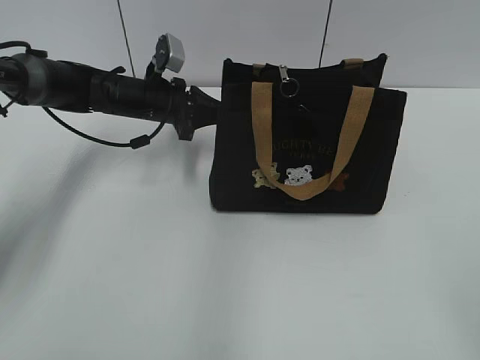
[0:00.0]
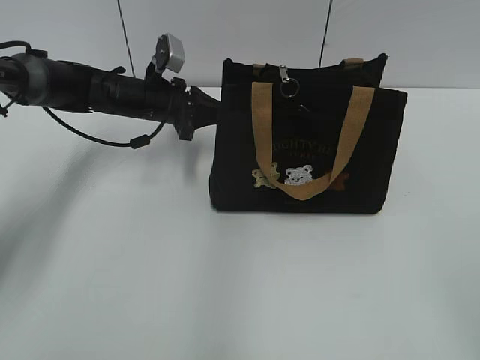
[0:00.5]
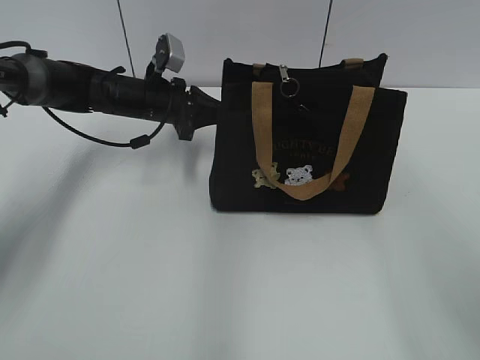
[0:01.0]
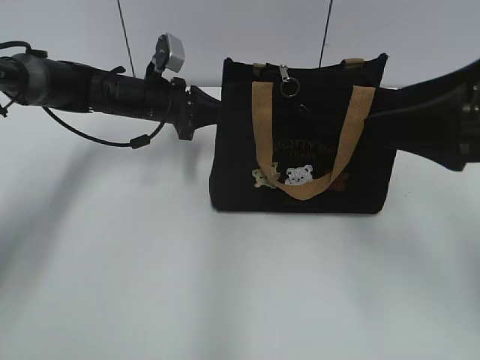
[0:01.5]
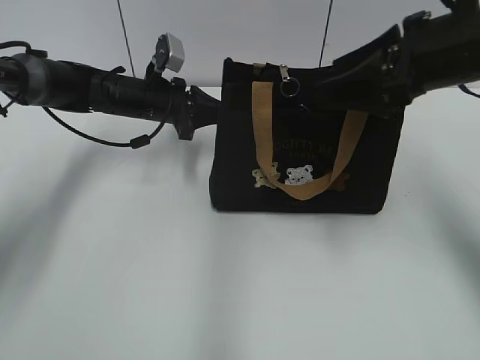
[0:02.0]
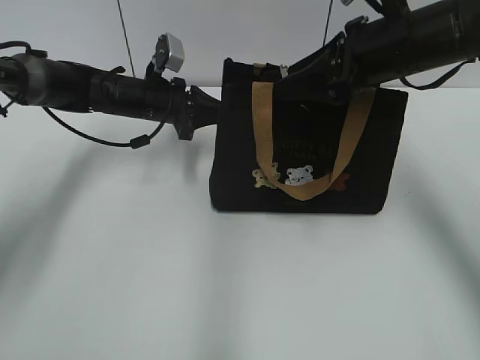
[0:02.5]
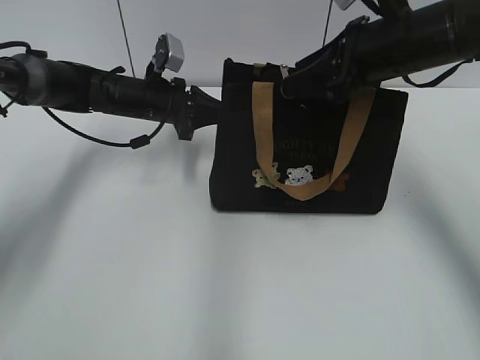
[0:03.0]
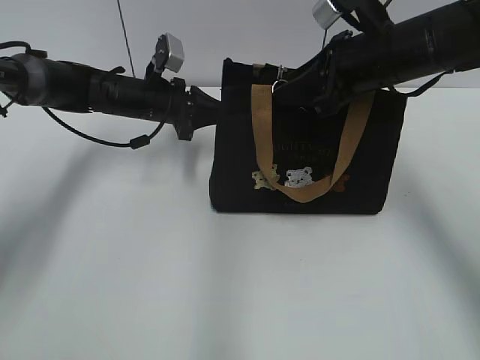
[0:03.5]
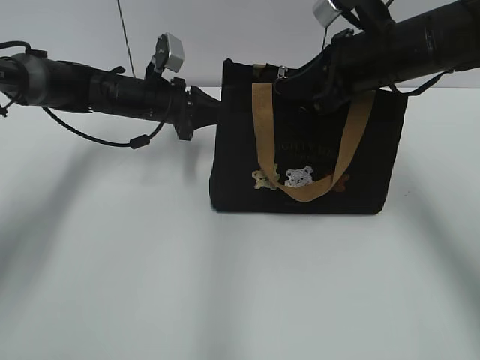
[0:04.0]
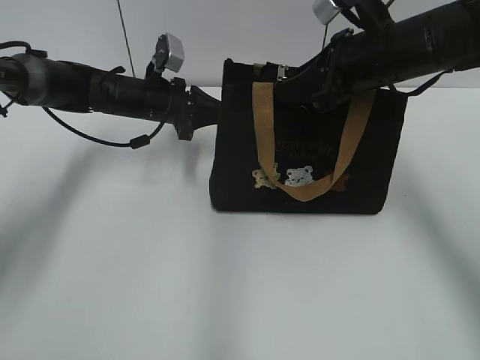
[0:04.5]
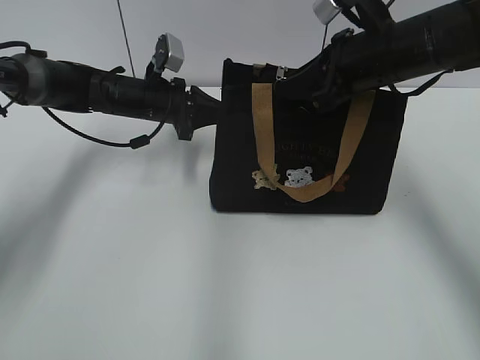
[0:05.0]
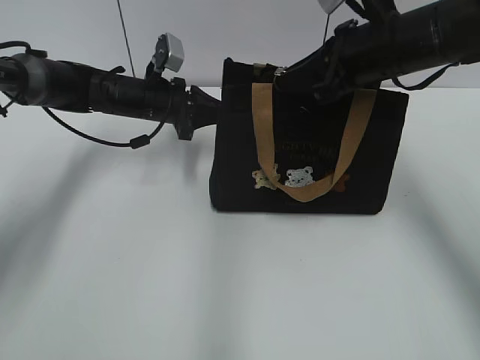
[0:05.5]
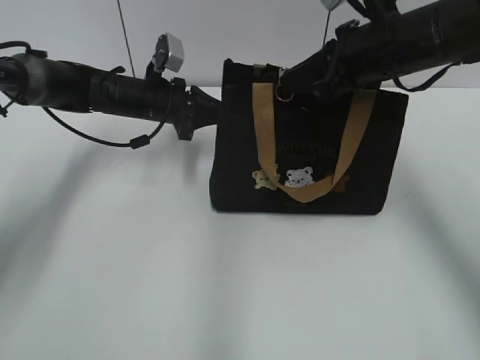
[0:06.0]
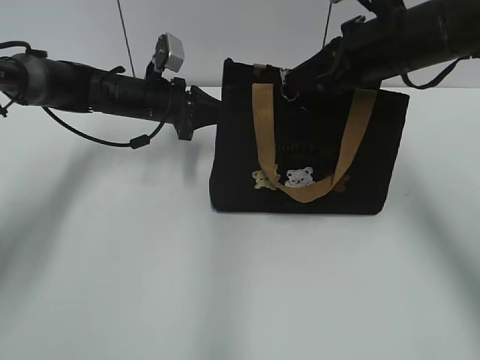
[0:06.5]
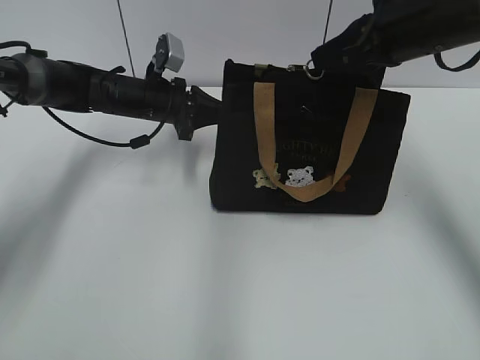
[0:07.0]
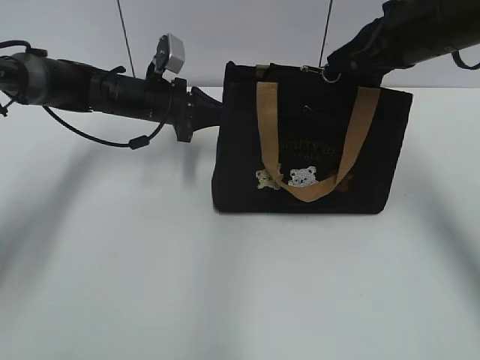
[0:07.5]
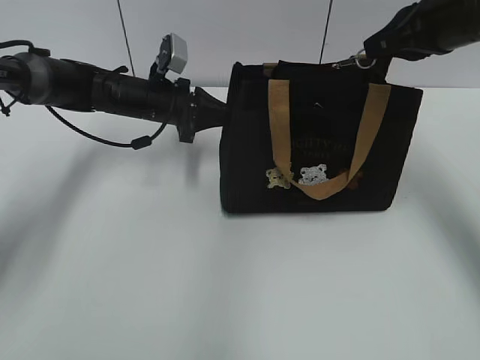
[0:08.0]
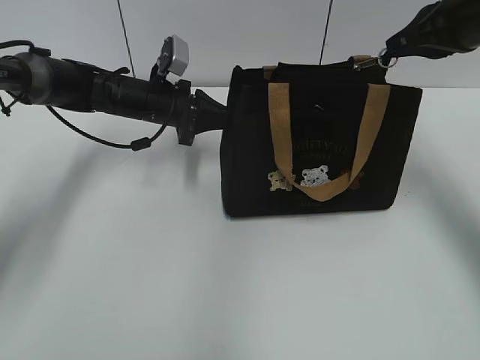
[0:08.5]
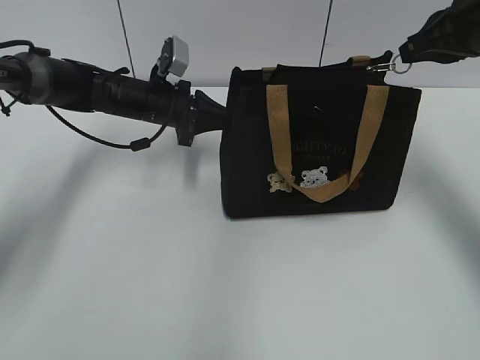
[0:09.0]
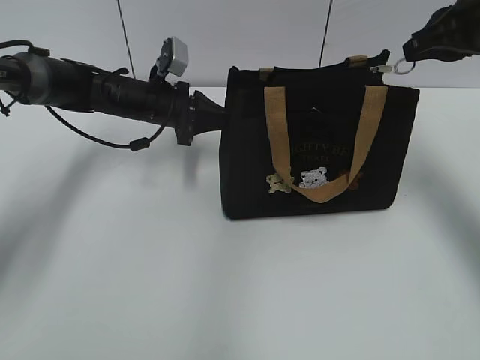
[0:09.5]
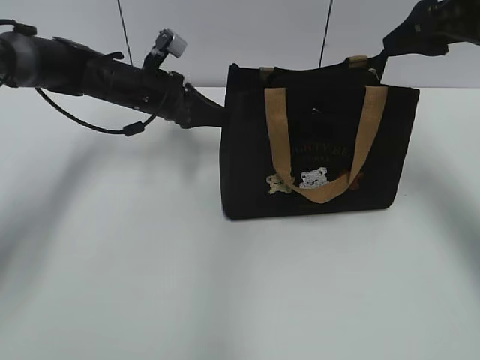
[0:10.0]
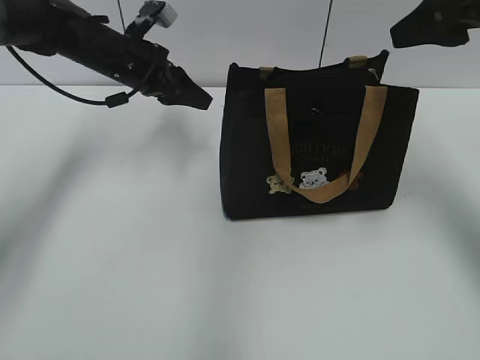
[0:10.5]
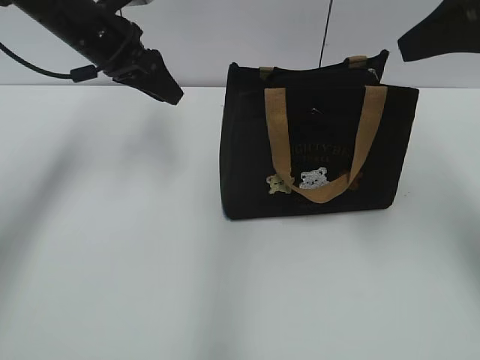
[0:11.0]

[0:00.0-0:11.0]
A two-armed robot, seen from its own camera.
Step, 0:00.0 to 0:09.5: Pull open the zipper with your right hand.
0:00.0 to 0:02.0: The right gripper is displaced forward by about 30 cm.
0:02.0 to 0:03.5: The right gripper moves forward, about 5 cm, and closes.
0:03.5 to 0:05.5: Both grippers stay put.
0:05.5 to 0:07.5: The grippers make only small movements.
0:07.5 to 0:09.0: The right gripper heads to the right, covering some 5 cm.
0:09.0 to 0:11.0: The right gripper travels backward and upward by about 10 cm, and opens, while the left gripper heads upward, covering approximately 10 cm, and opens up.

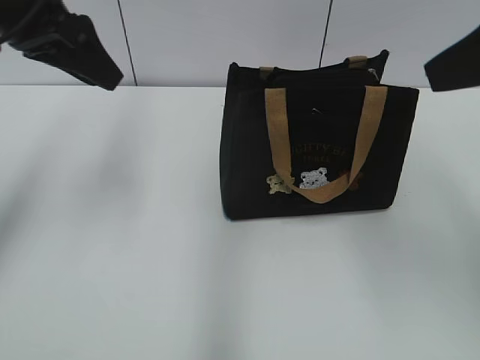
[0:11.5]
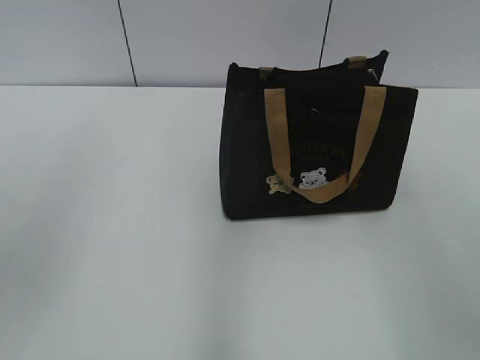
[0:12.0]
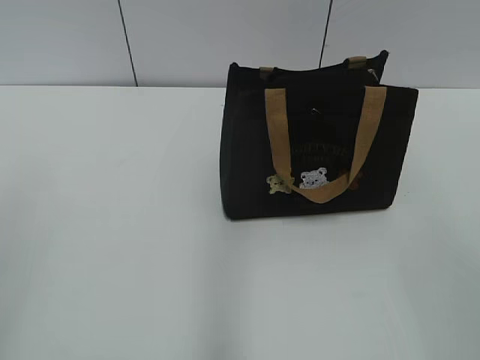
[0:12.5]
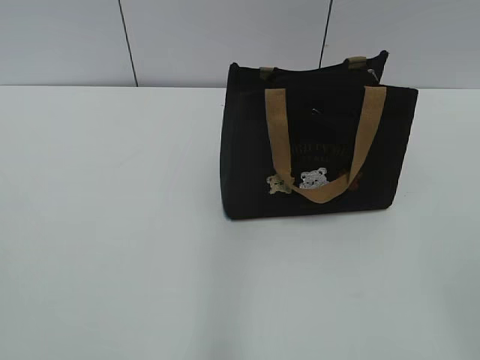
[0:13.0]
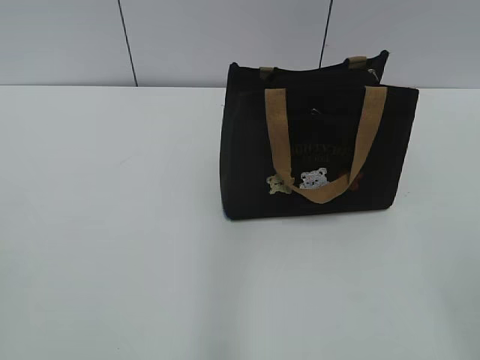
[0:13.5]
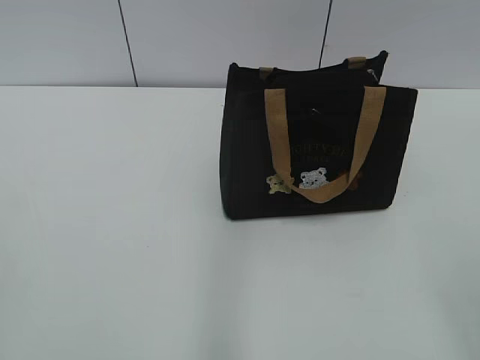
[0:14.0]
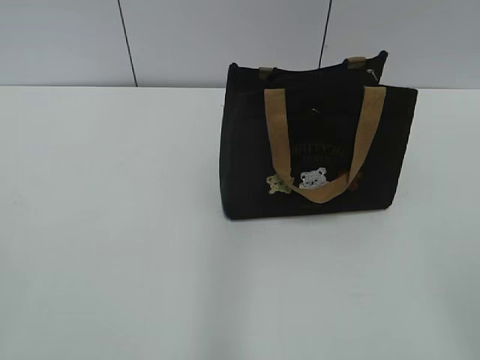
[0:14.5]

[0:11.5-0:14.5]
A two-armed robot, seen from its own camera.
0:11.5 to 0:13.0: The grippers both shift backward by approximately 30 cm.

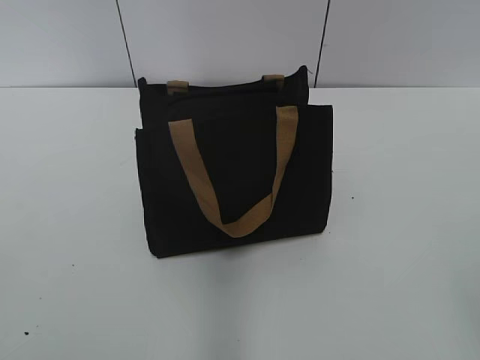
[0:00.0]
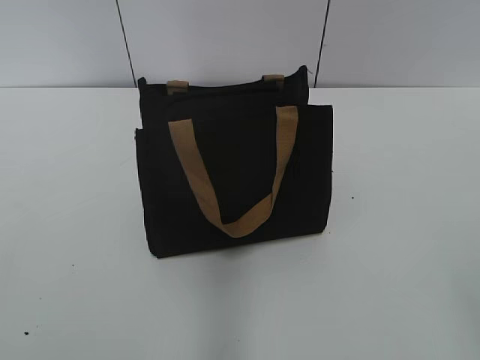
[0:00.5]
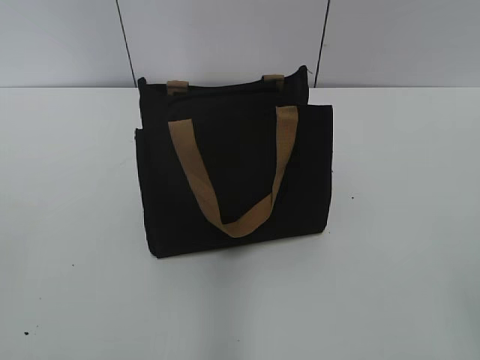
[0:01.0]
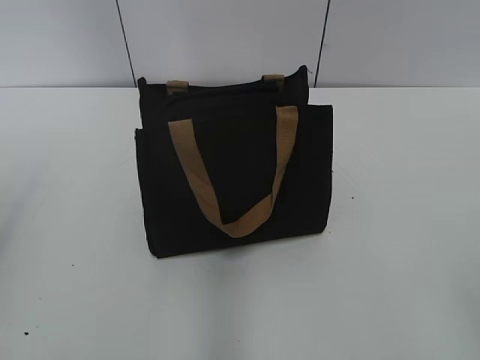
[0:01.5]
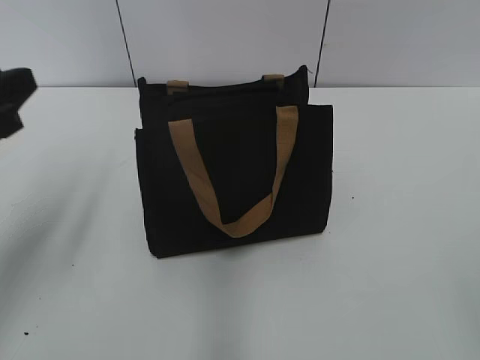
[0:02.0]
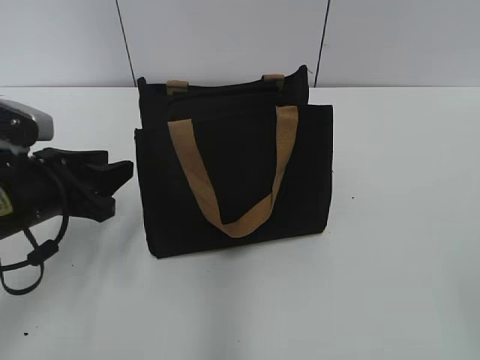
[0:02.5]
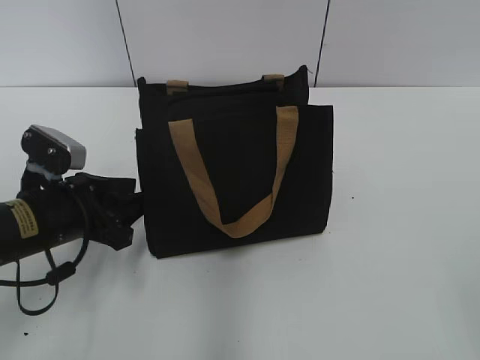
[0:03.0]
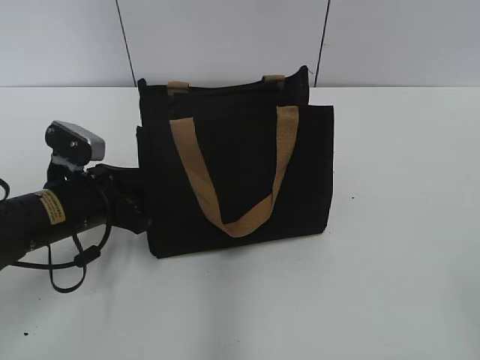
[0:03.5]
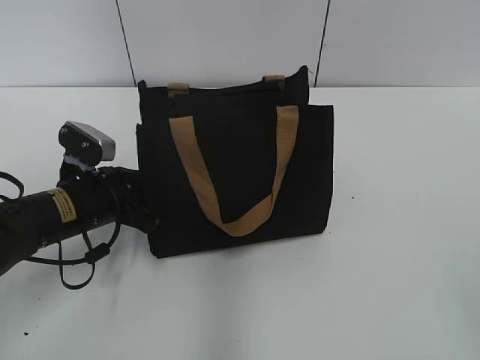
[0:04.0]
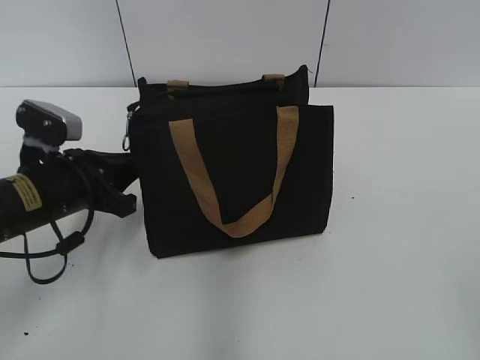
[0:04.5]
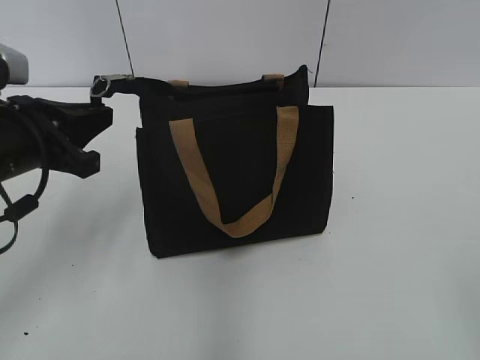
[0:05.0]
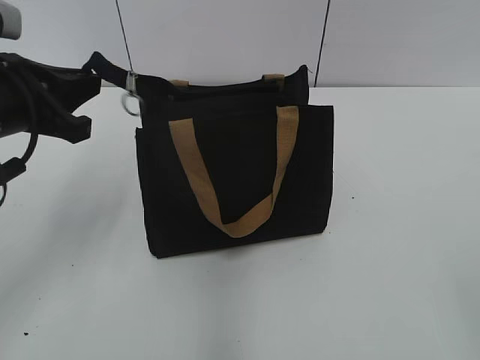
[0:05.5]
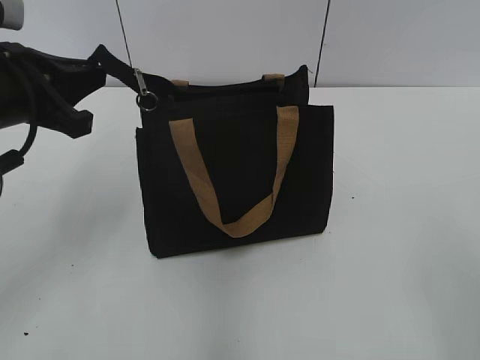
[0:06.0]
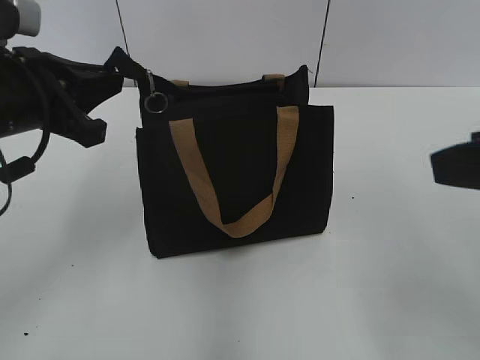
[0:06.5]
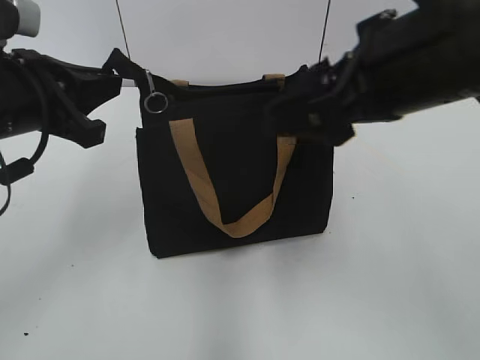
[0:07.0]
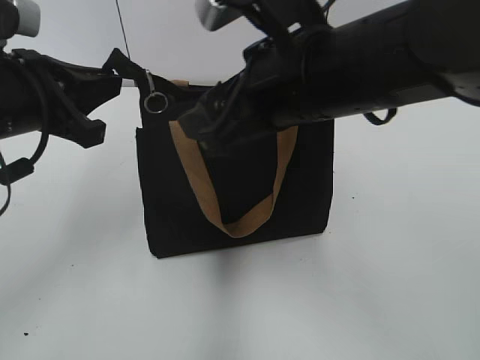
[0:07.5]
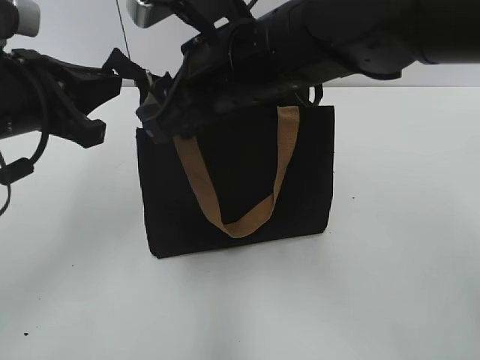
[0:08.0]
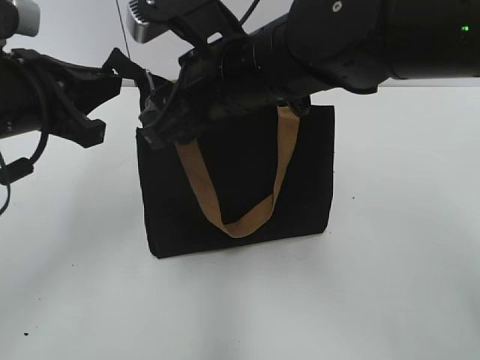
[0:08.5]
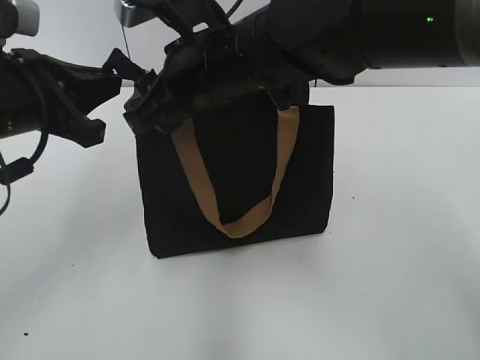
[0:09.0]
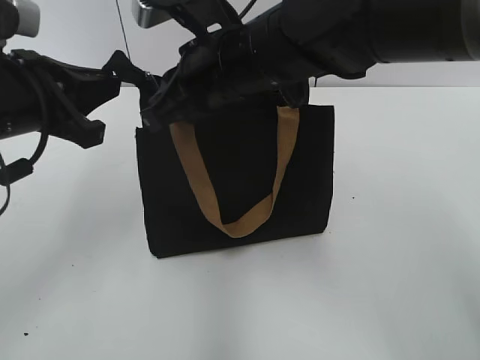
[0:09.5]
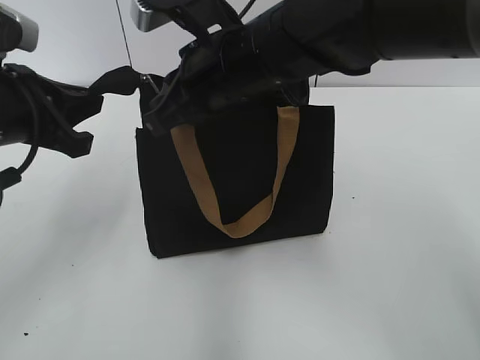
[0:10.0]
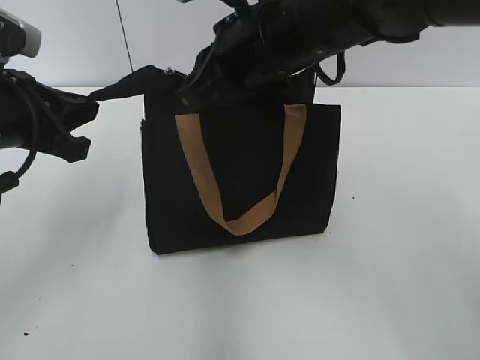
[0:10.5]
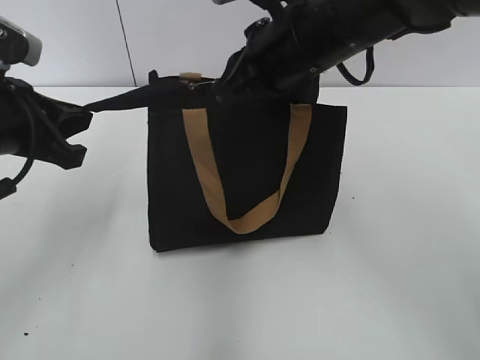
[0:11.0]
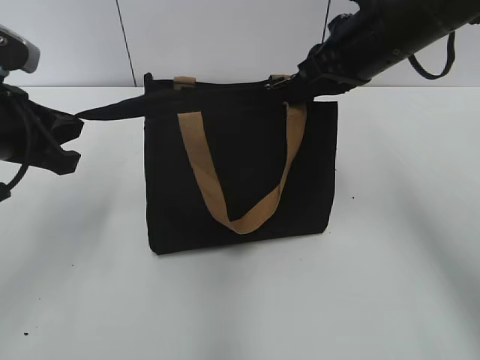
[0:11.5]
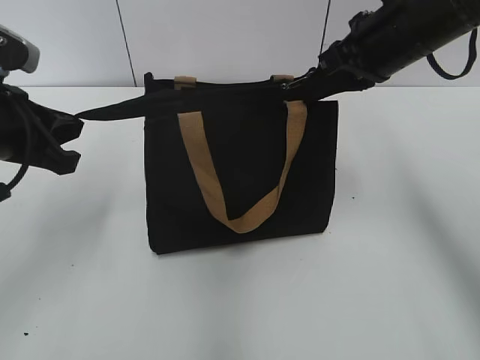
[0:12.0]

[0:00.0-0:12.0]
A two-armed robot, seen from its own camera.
0:02.0 to 0:04.0: The left gripper is displaced downward, forward and to the right by roughly 20 cm.
0:04.0 to 0:06.0: The left gripper travels upward by approximately 15 cm.
0:06.0 to 0:08.0: The right gripper is displaced forward and to the left by roughly 35 cm.
0:08.0 to 0:10.0: The right gripper closes up.
0:10.0 to 0:12.0: The right gripper shifts about 15 cm to the right.
